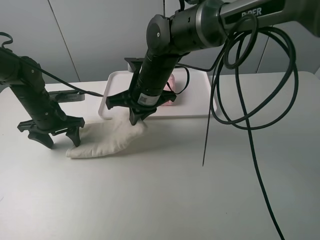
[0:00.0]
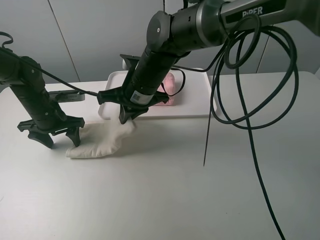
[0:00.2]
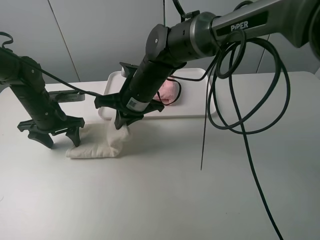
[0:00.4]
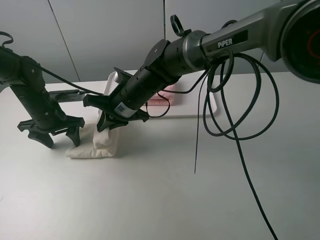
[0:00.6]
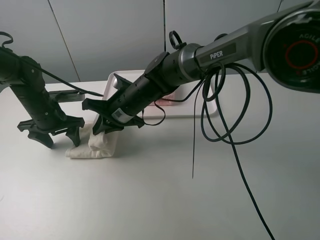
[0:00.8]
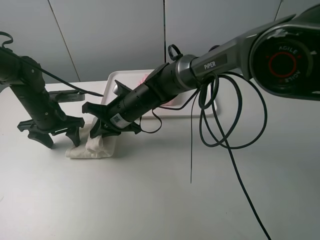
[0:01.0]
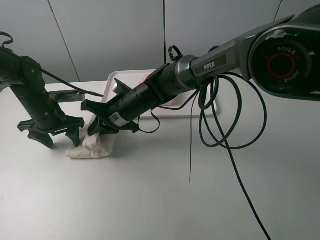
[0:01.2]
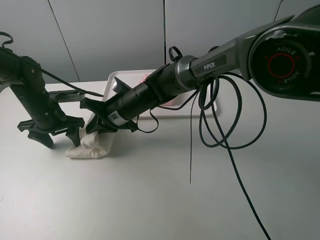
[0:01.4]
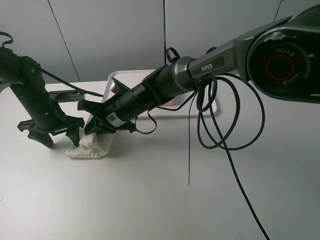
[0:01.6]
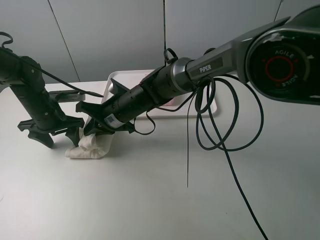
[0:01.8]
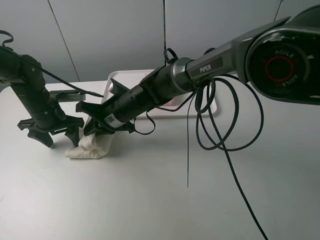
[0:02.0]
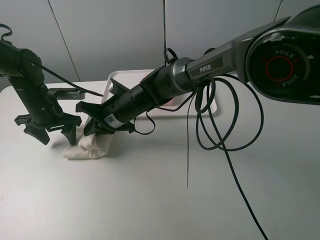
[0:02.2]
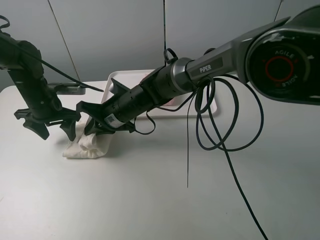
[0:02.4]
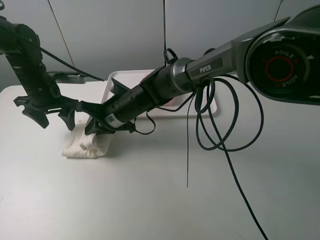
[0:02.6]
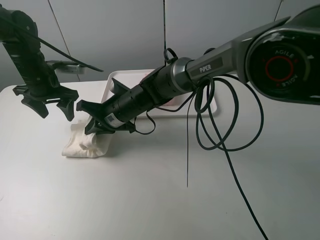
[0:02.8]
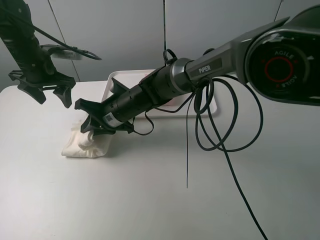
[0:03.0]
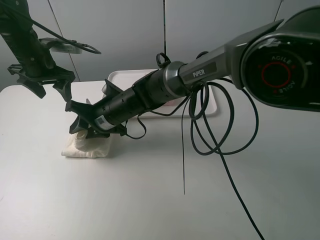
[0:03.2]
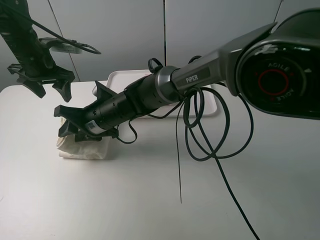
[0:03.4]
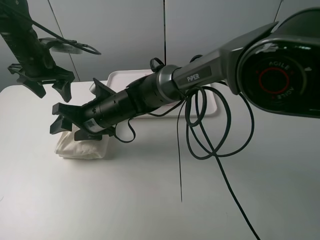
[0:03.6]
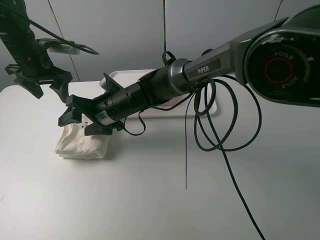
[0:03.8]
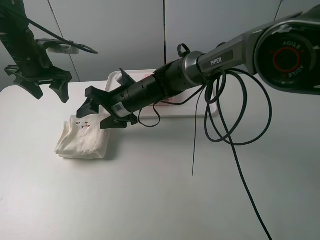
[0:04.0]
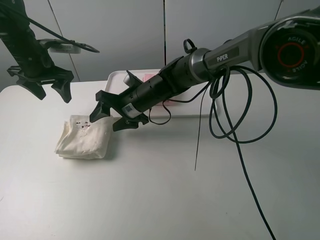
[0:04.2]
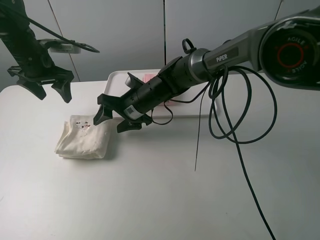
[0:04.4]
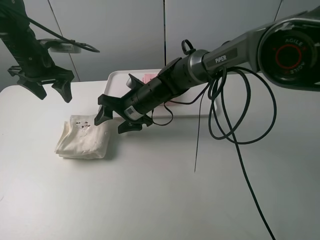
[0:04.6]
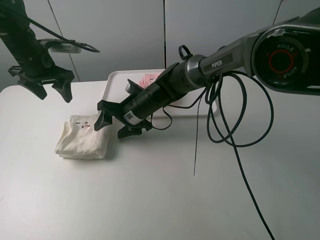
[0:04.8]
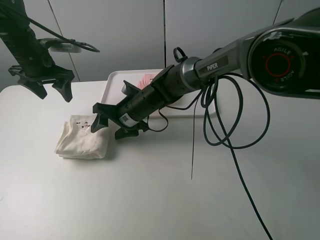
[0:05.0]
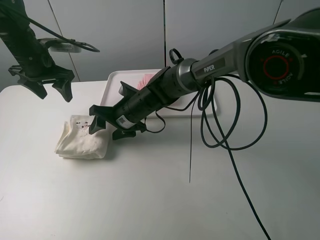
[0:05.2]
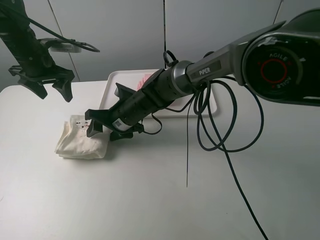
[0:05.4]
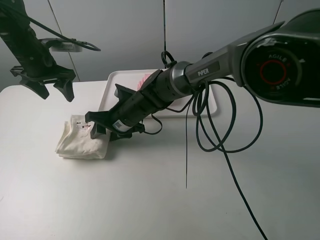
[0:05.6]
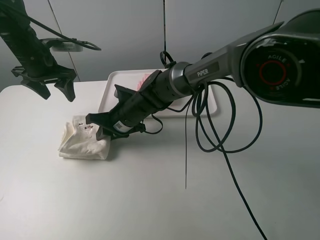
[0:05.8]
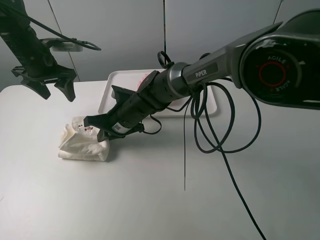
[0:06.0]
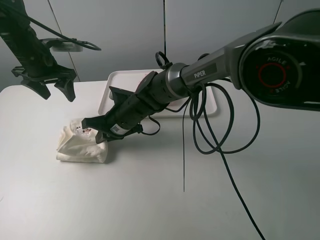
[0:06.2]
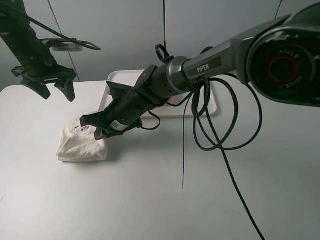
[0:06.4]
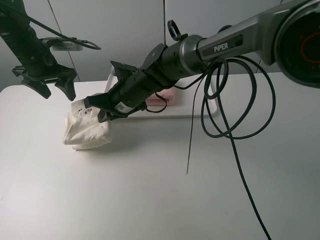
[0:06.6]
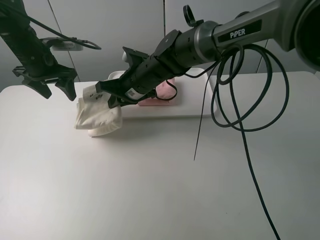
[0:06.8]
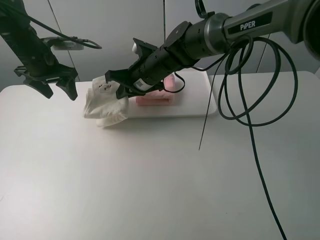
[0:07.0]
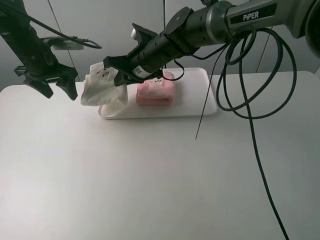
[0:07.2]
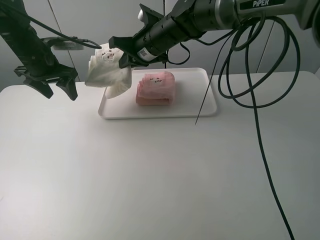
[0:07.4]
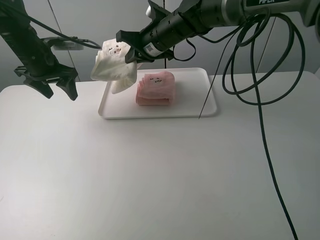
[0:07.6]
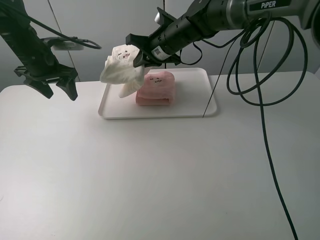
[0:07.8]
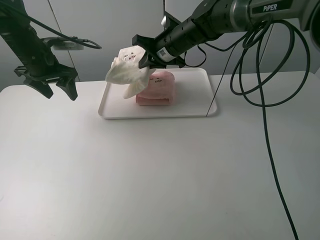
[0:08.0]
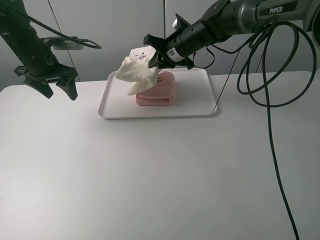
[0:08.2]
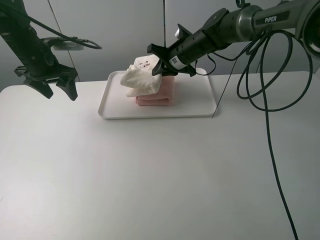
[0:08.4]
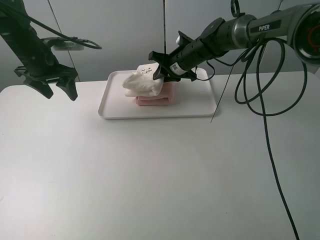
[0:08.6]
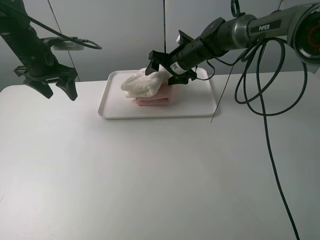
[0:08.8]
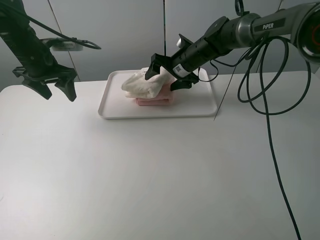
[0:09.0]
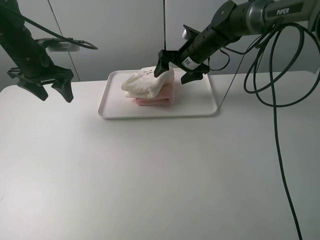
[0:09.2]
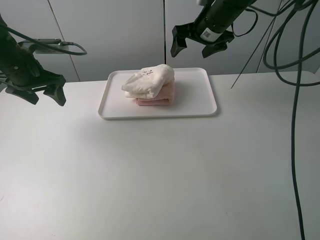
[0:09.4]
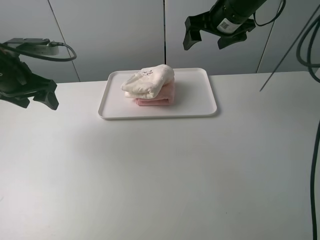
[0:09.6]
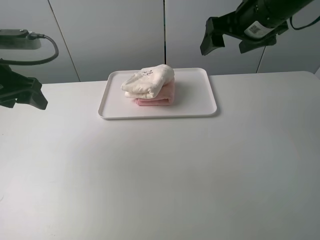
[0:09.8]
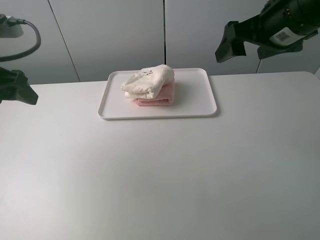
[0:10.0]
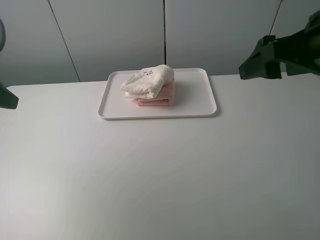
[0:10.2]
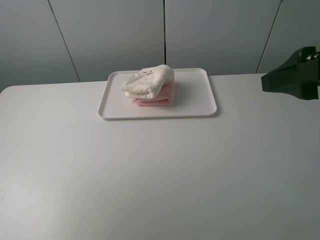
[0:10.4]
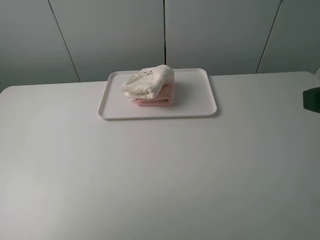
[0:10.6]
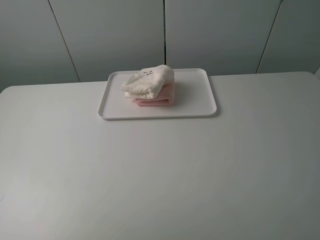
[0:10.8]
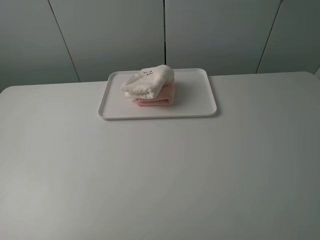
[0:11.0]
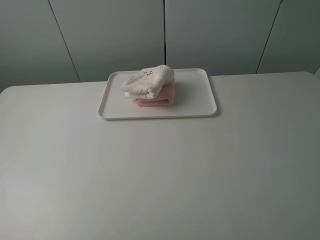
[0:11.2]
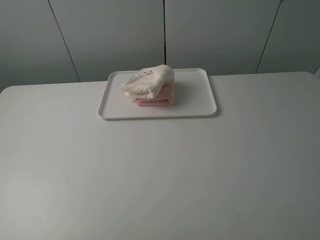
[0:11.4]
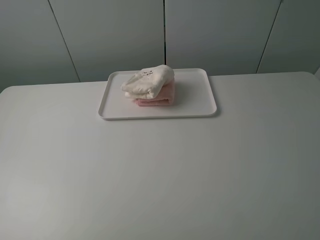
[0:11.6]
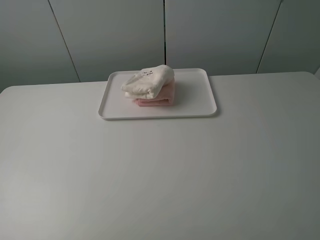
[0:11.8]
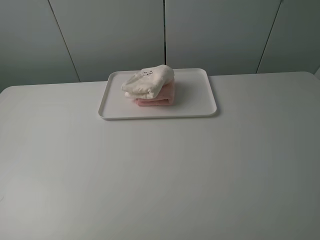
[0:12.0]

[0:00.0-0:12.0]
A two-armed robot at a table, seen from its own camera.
Task of the whole recording: fold one of the towels by two grippers and place it on the tray,then fold another towel by two grippers and place it on the folded towel.
Step, 0:00.0 to 0:03.6: Fold the white towel from right to left with right gripper.
Step, 0:03.8 to 0:05.8: Grasp the white towel with the right gripper.
Step, 0:06.0 to 0:09.2: Place the white towel on the pink towel with the right gripper.
0:00.0 to 0:01.6: The right gripper travels downward and to the left by approximately 10 cm.
0:01.6 to 0:03.0: The left gripper is displaced upward and forward by approximately 10 cm.
0:03.0 to 0:04.4: The right gripper shifts by roughly 5 cm, and opens its fingers.
0:04.4 to 0:06.0: The right gripper shifts by about 5 cm, and closes up.
0:06.0 to 0:07.6: The right gripper travels upward, forward and to the right by about 20 cm.
0:07.6 to 0:09.0: The right gripper is displaced downward and to the right by about 10 cm, and opens up.
0:09.0 to 0:10.4: The right gripper shifts roughly 40 cm backward, upward and to the right. Meanwhile the left gripper travels backward by some 25 cm.
0:10.4 to 0:12.0: The right gripper is displaced backward and to the right by some 15 cm; the left gripper goes roughly 15 cm backward.

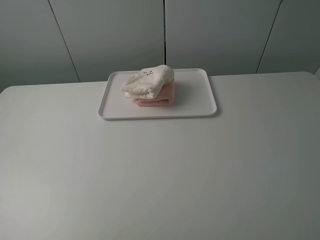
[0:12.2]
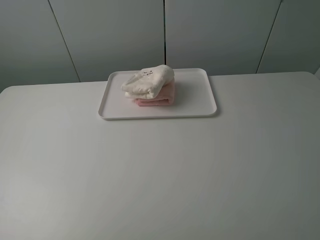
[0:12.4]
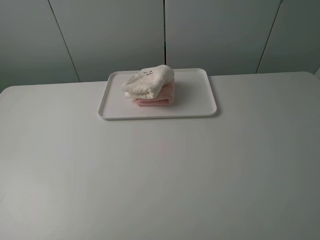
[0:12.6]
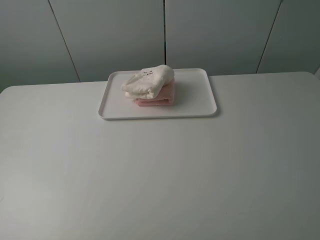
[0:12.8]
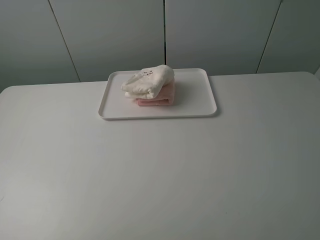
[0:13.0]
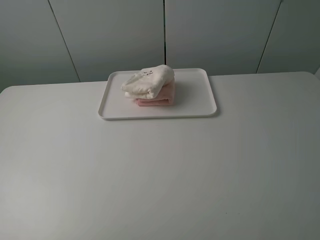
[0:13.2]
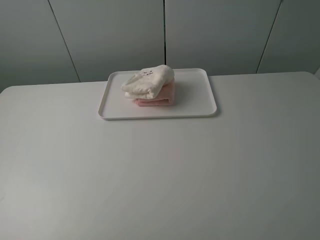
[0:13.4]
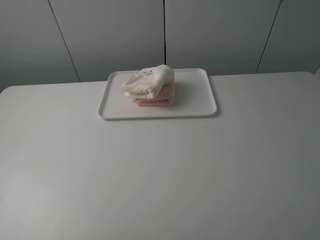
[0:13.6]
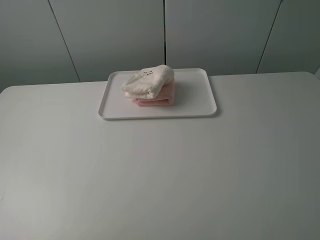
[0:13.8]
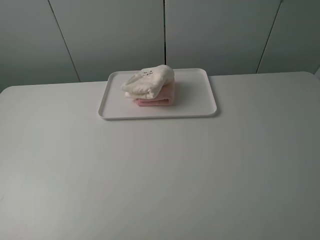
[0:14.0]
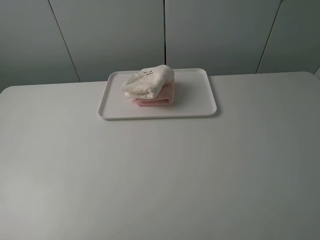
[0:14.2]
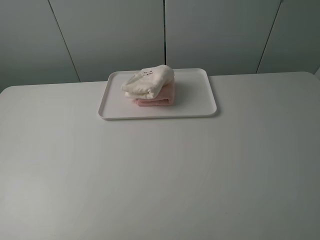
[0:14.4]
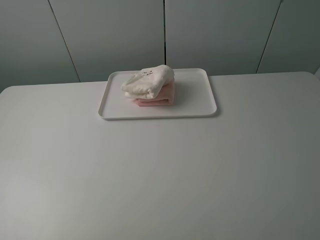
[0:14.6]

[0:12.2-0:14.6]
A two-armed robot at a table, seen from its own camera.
Task of the whole recording: fold one of the towels by two grippers and place it on the tray,then fold another towel by two grippers and place it on the folded towel.
0:13.4 to 0:14.6: The two grippers keep their place.
